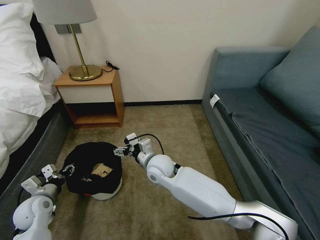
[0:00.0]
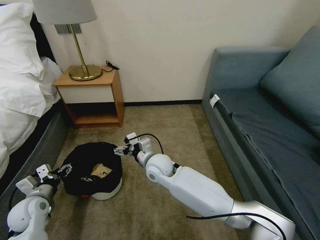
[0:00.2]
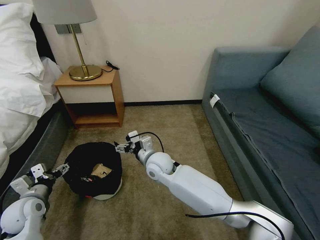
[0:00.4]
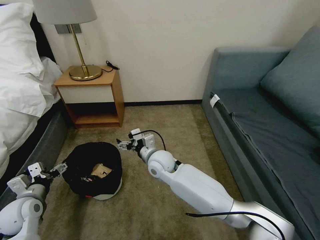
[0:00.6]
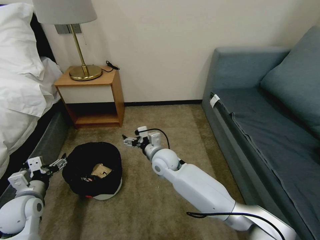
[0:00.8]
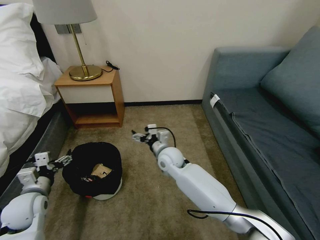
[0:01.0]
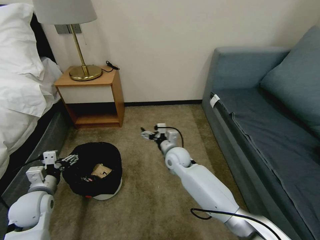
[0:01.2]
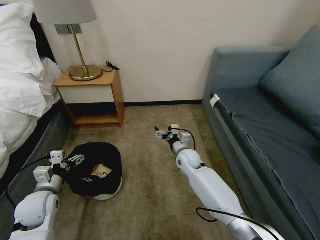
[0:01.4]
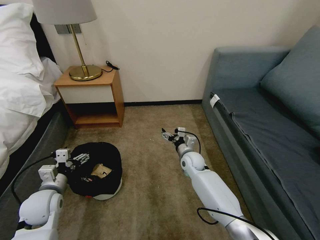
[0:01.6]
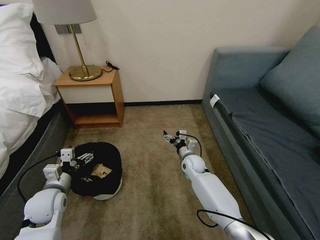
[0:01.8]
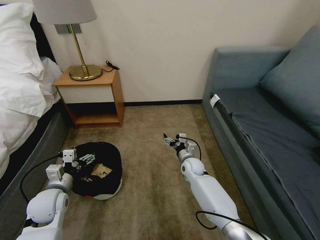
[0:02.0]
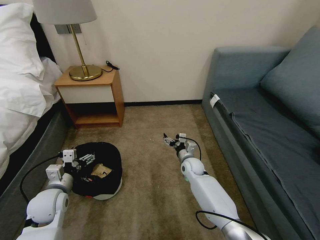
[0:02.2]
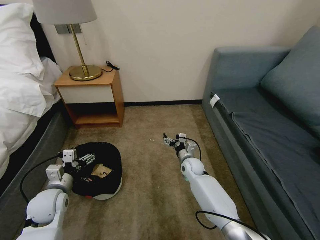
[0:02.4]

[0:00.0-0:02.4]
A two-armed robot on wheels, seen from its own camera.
Task of the whole recording: Pick up the trash bin, then pick up the garbage on the floor and place it into the trash bin.
0:00.0 to 0:01.2: The left gripper moves roughly 5 cm, and opens its fingers. The right gripper is displaced to the right and forward by some 10 cm.
0:01.2 to 0:02.4: The right gripper is displaced downward and to the right by some 10 cm.

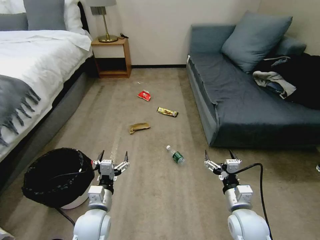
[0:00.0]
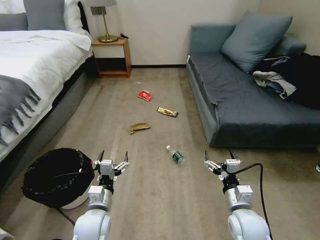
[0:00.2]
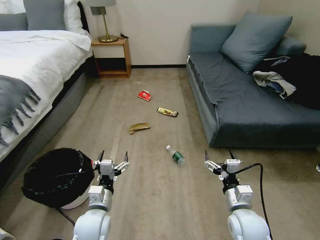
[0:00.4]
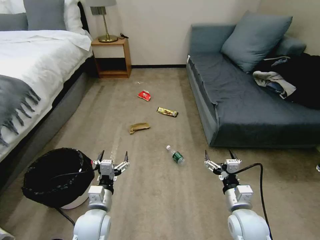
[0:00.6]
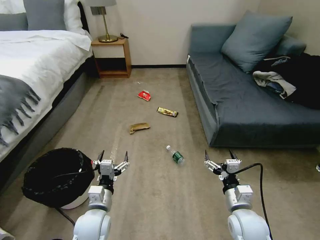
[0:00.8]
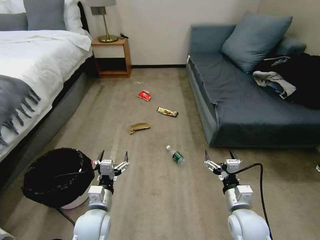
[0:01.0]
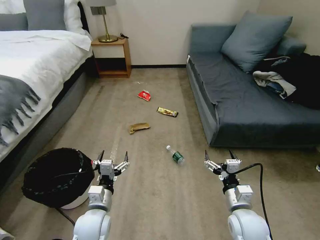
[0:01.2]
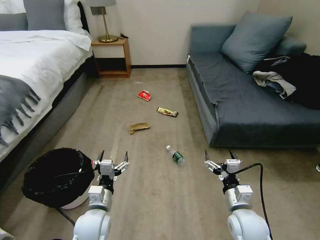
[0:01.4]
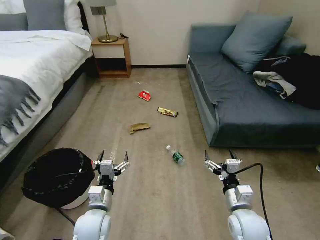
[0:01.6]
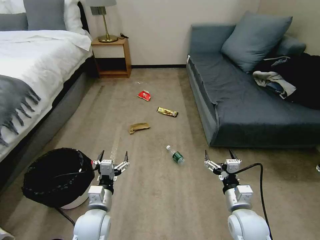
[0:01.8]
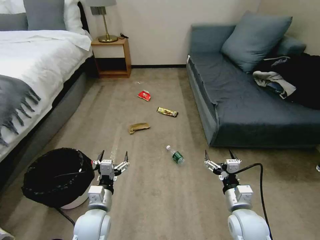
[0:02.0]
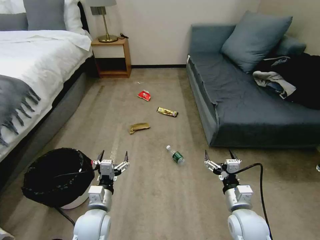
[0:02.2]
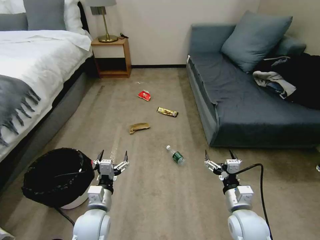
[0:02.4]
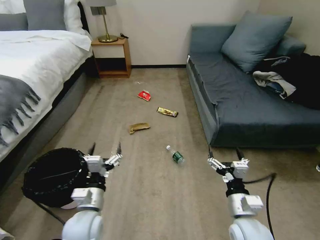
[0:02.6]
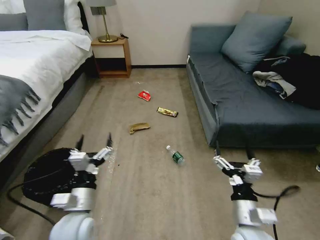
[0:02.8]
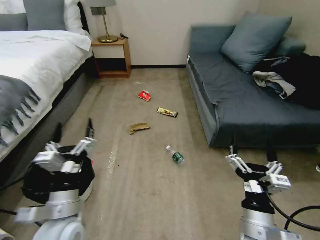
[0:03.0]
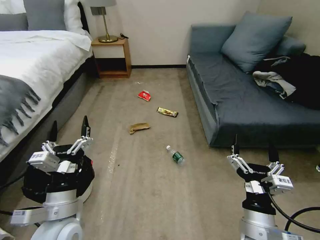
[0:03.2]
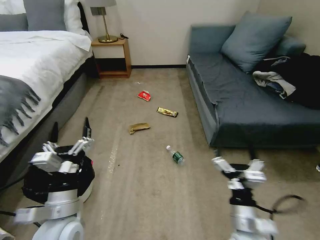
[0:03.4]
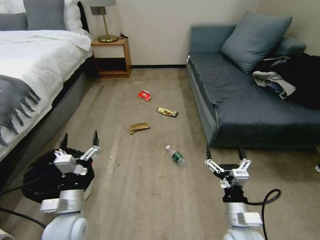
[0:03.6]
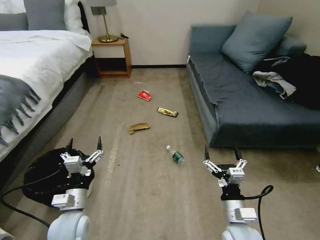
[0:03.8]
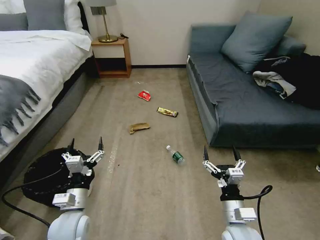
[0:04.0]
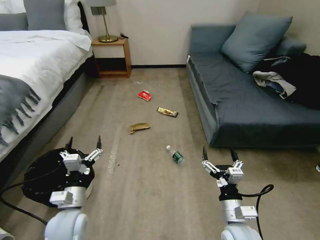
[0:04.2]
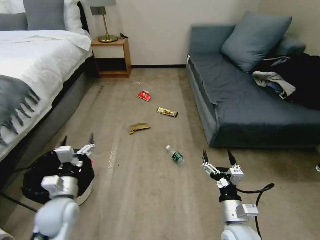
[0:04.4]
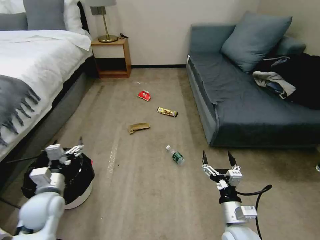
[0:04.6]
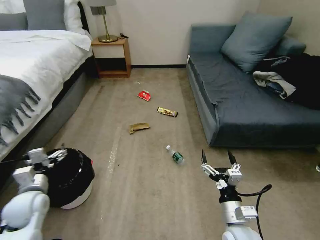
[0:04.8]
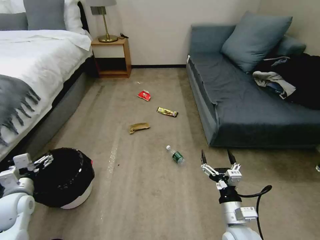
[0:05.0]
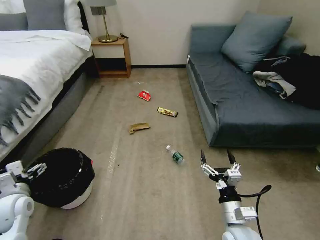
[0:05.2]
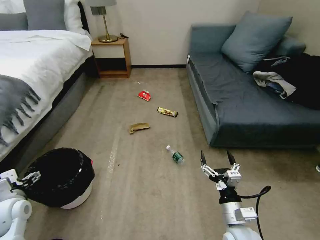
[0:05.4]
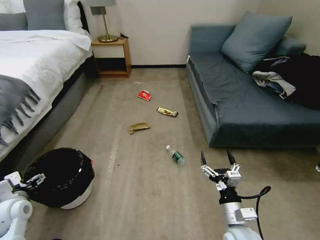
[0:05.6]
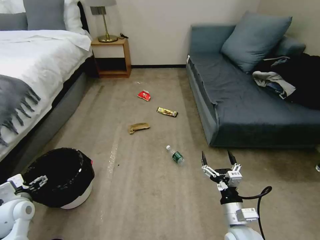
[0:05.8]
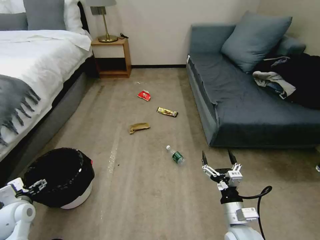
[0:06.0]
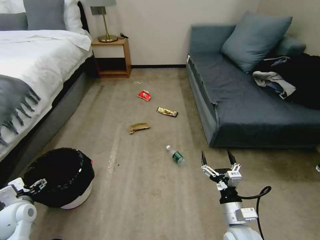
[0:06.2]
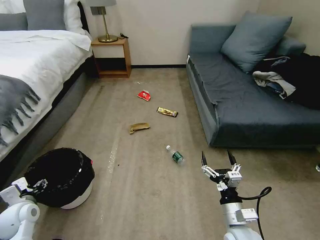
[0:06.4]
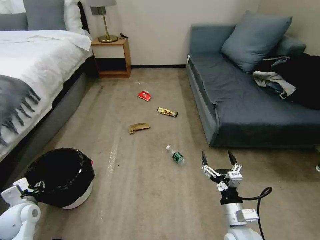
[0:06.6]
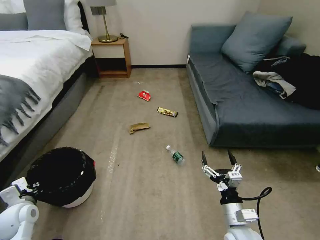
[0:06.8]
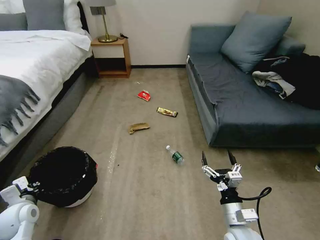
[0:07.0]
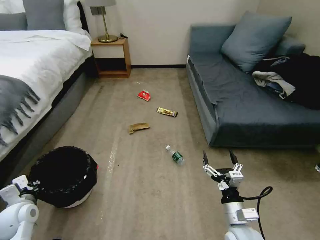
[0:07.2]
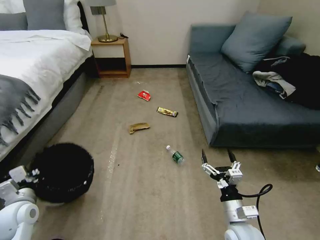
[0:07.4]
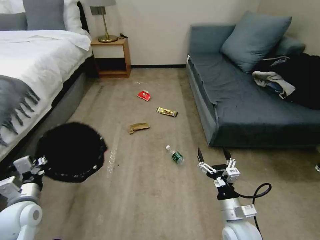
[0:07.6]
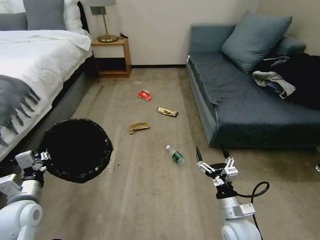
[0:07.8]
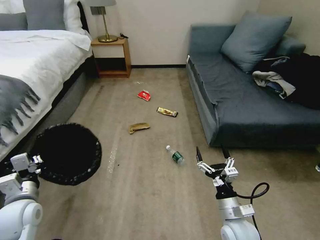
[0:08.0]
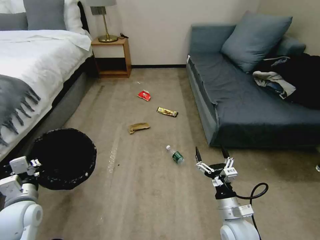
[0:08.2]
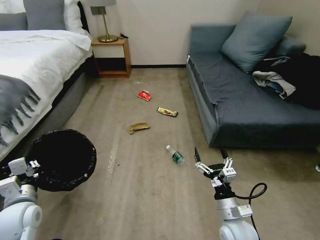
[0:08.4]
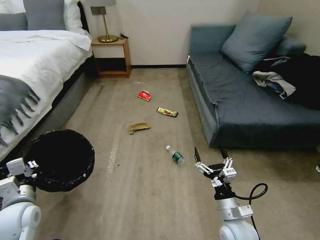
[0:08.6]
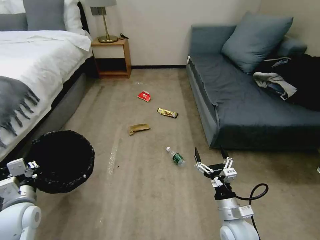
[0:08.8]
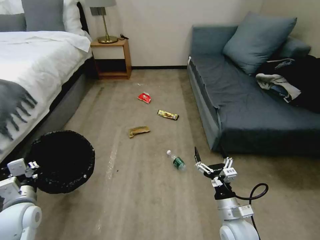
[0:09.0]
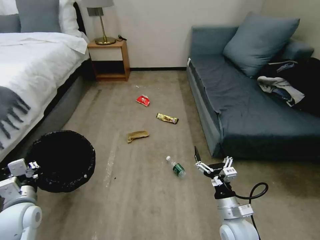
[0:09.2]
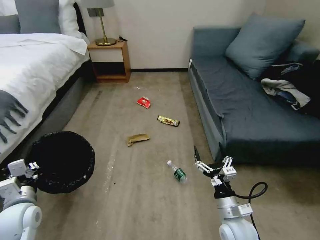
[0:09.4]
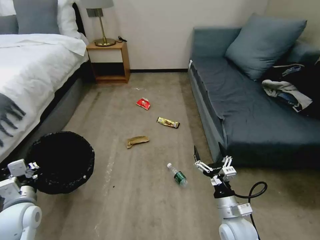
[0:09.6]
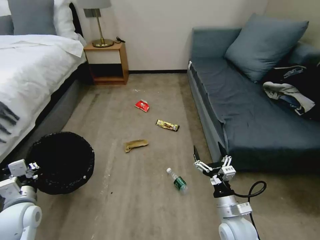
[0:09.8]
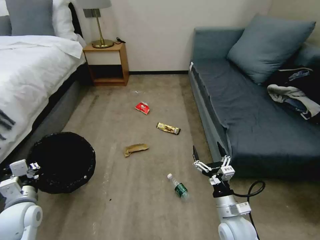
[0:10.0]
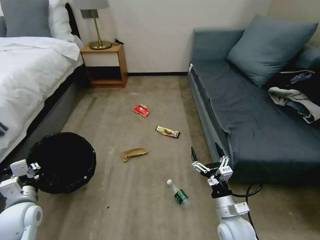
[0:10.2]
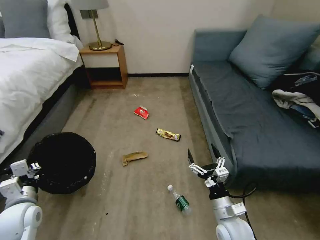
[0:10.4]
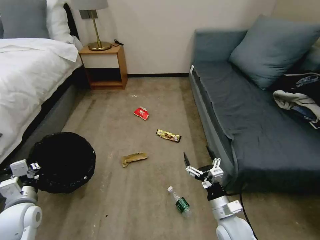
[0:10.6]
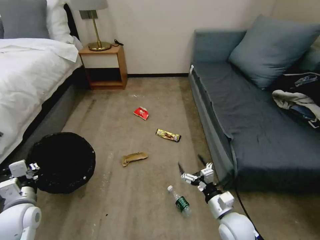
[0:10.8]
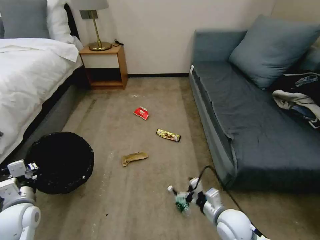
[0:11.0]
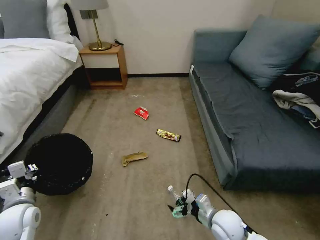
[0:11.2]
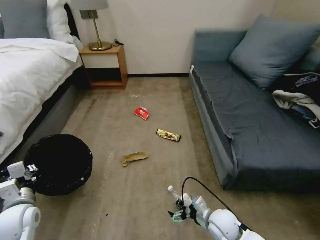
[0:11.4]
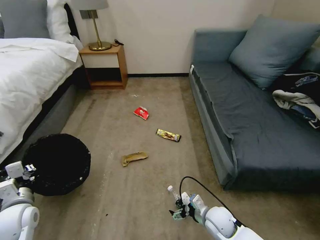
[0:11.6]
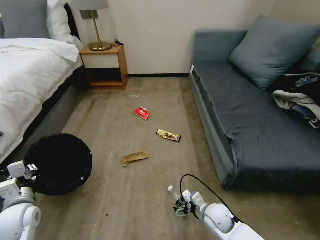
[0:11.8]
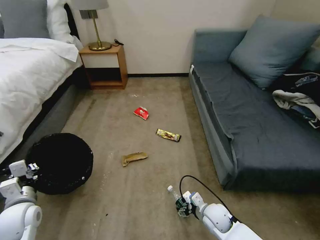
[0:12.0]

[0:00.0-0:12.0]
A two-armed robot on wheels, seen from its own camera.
Task of the whole recording: Pick up the trash bin, then pick up the garbage on the floor and place it into the trash bin.
0:01.6 to 0:03.0: The right gripper shifts roughly 10 cm backward and upward. Meanwhile the left gripper moves upward, some 10 cm.
0:03.0 to 0:04.4: The right gripper moves downward, roughly 10 cm; the left gripper moves to the left, forward and downward, approximately 10 cm.
0:04.4 to 0:06.0: The left gripper heads to the left, covering approximately 15 cm.
0:06.0 to 0:07.6: The left gripper moves to the right, some 5 cm, and closes up.
0:07.6 to 0:09.0: The grippers stay close to where they were, moving slightly.
0:10.4 to 0:12.0: The right gripper is displaced downward and forward by some 10 cm.

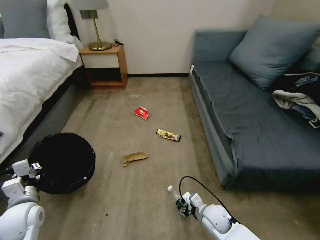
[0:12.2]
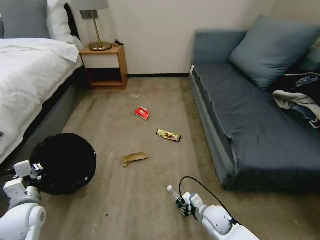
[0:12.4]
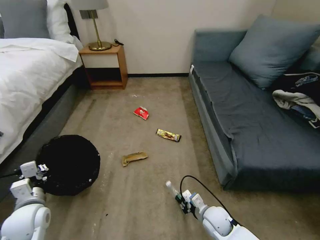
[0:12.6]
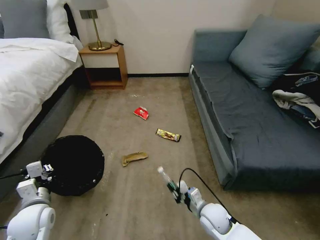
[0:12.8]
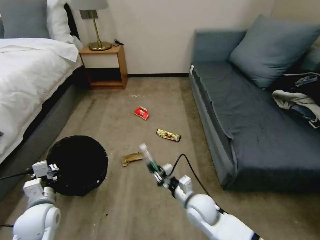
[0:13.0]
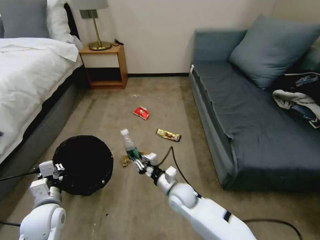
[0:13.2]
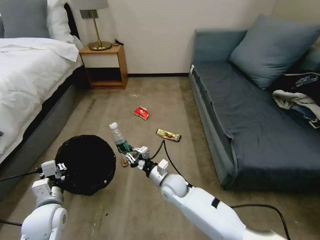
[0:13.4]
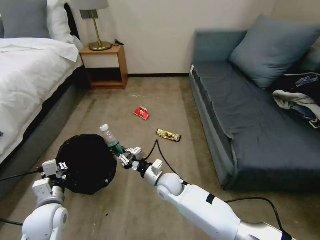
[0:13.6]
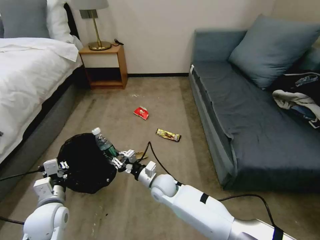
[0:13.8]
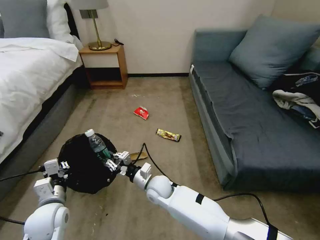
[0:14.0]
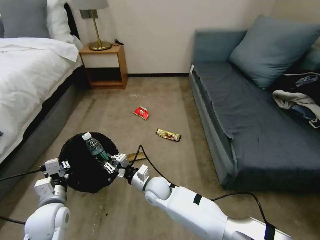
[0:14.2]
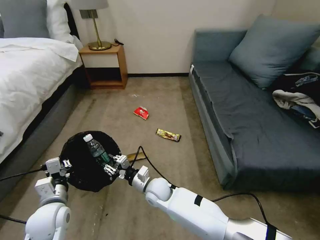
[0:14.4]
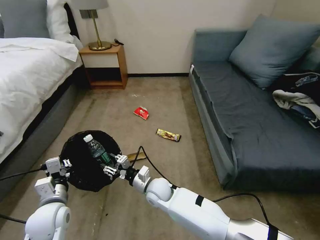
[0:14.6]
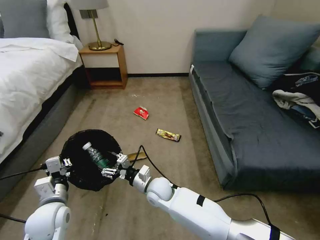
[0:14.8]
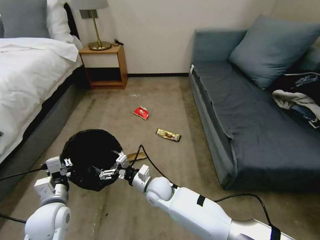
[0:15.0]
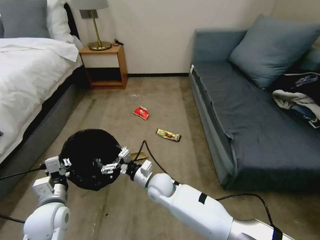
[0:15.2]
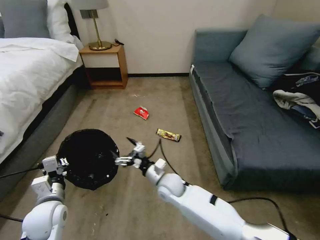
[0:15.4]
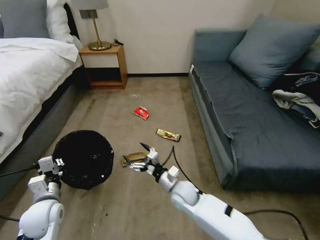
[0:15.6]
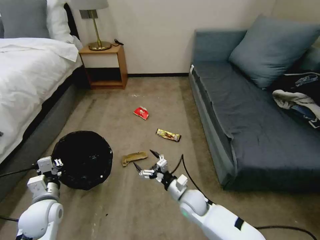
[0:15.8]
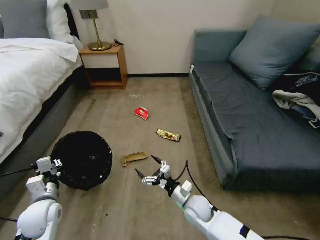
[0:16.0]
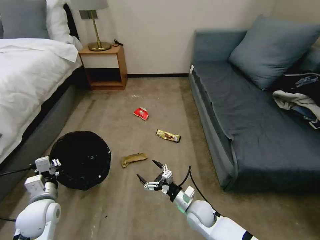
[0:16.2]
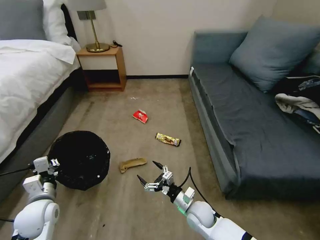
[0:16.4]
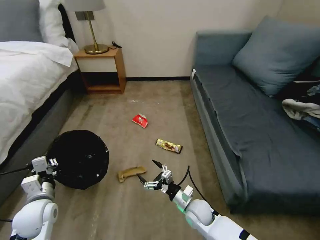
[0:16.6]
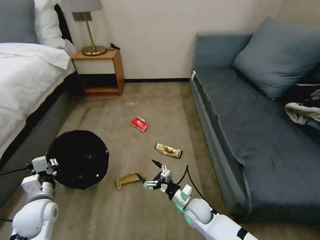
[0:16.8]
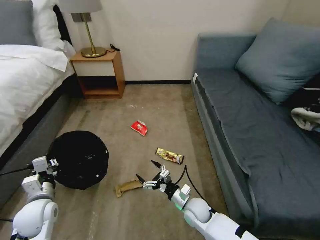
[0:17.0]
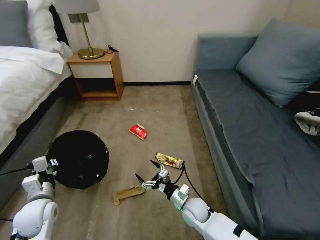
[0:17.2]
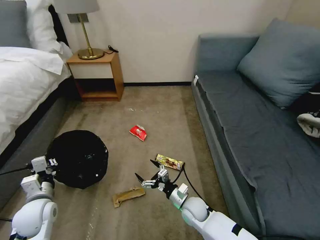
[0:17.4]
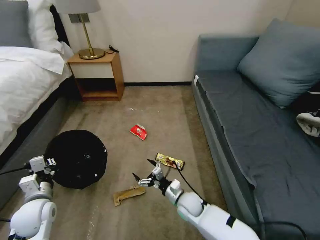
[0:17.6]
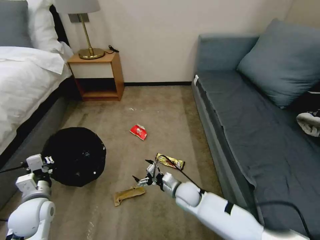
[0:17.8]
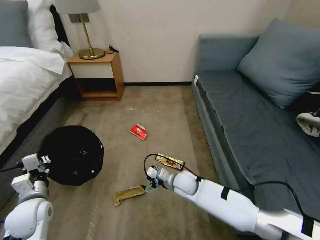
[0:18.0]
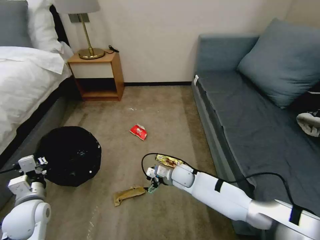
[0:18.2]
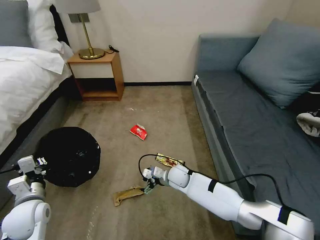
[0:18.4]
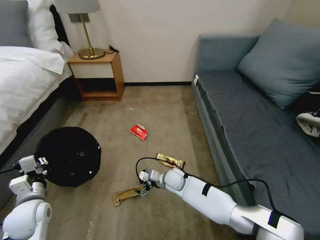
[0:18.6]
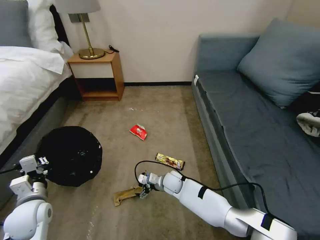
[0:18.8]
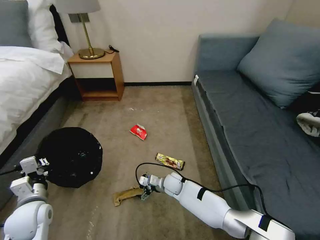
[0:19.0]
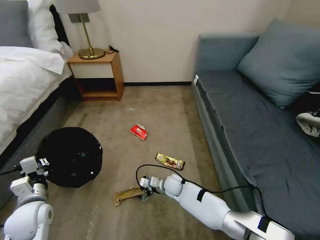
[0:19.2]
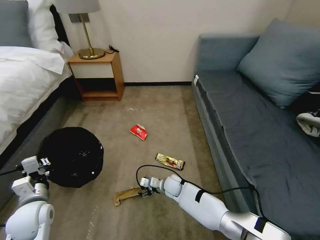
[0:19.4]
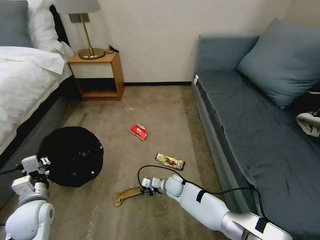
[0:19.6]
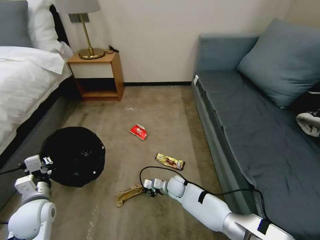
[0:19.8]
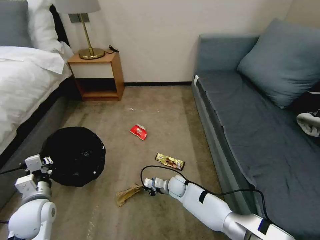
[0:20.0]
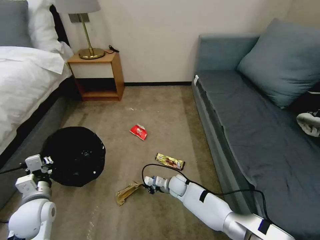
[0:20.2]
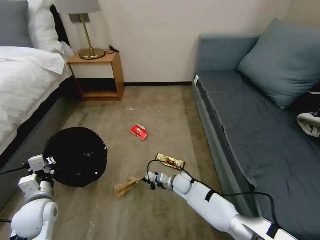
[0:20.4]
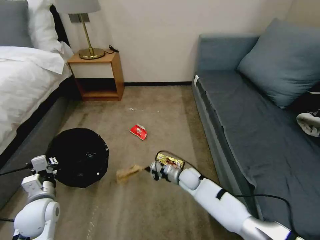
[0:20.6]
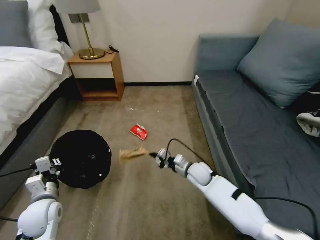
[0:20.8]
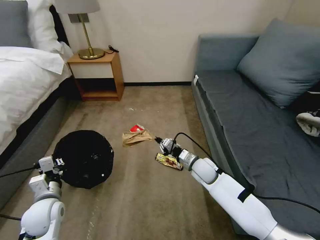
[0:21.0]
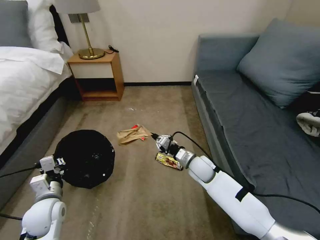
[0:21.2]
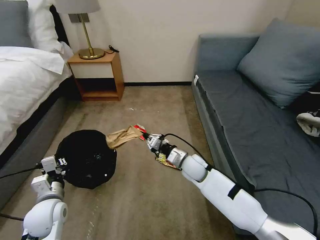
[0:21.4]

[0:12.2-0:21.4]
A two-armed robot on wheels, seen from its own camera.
Task of the whole recording: Pick up the trash bin, then pick up the garbage on the floor and place it into the trash bin.
0:12.2 to 0:13.8: The left gripper is displaced to the right by some 5 cm, while the right gripper goes approximately 20 cm to the left and forward, and closes up.
0:13.8 to 0:15.2: The right gripper opens its fingers.
0:15.2 to 0:16.8: The right gripper goes roughly 20 cm to the right, downward and backward. Meanwhile the left gripper goes some 5 cm to the left.
0:16.8 to 0:18.4: The right gripper shifts some 15 cm forward and to the left.
0:18.4 to 0:19.8: The right gripper shifts roughly 10 cm downward, and closes up.
0:19.8 to 0:21.4: The right gripper is displaced upward by approximately 15 cm.
